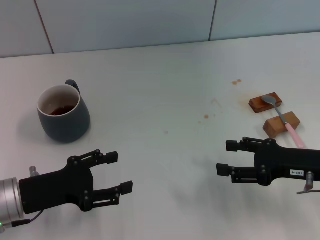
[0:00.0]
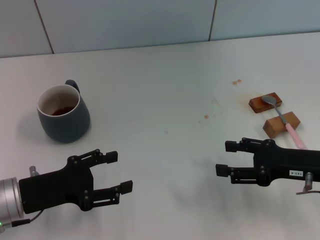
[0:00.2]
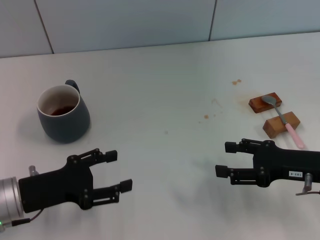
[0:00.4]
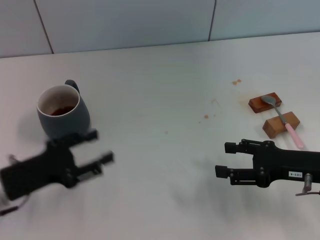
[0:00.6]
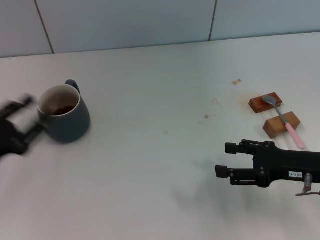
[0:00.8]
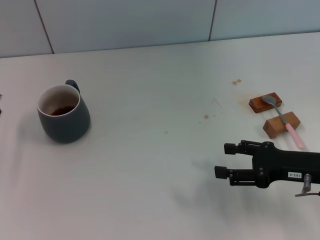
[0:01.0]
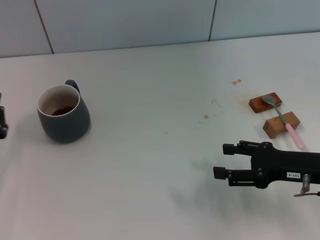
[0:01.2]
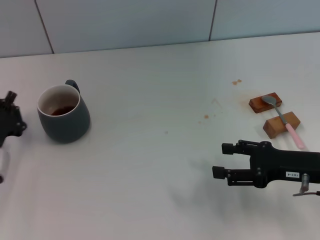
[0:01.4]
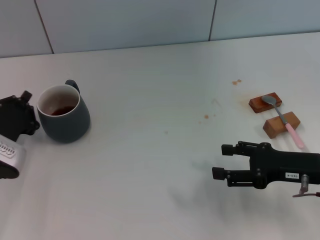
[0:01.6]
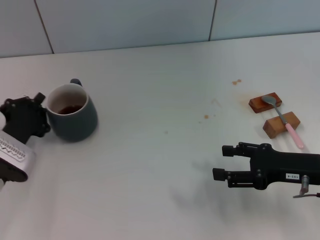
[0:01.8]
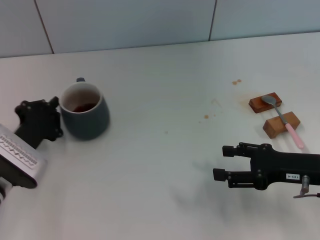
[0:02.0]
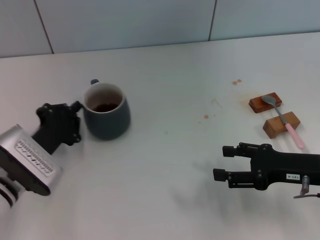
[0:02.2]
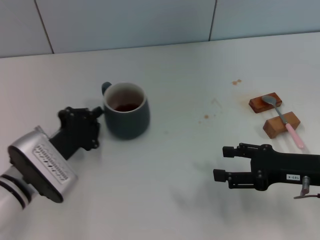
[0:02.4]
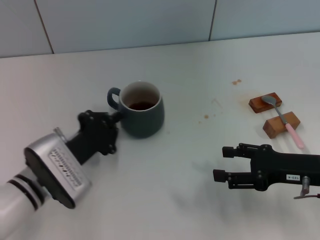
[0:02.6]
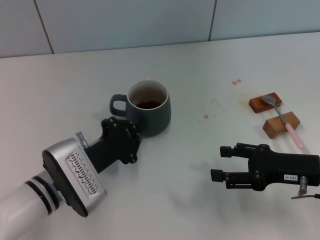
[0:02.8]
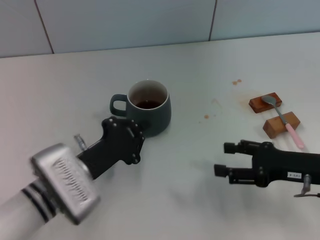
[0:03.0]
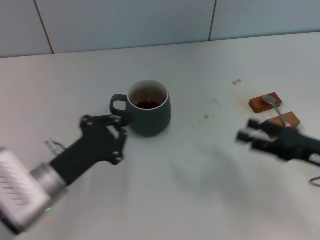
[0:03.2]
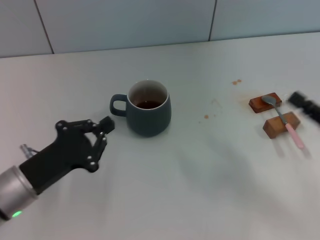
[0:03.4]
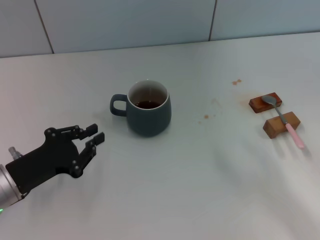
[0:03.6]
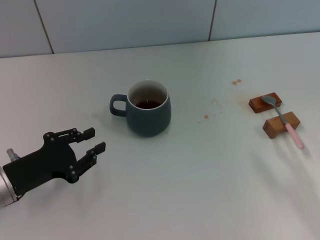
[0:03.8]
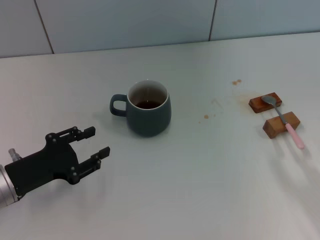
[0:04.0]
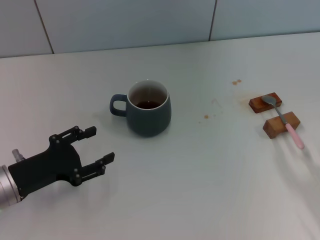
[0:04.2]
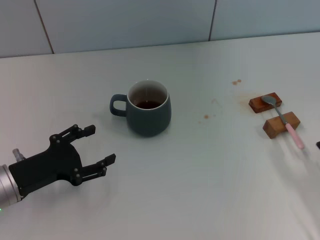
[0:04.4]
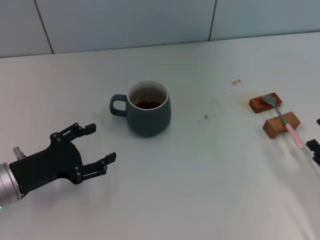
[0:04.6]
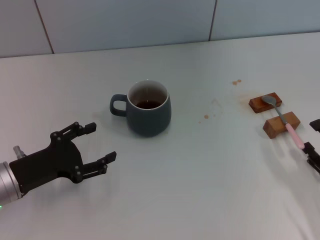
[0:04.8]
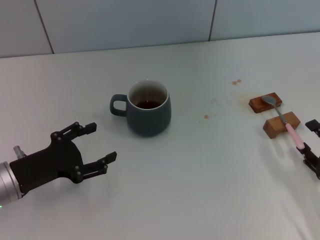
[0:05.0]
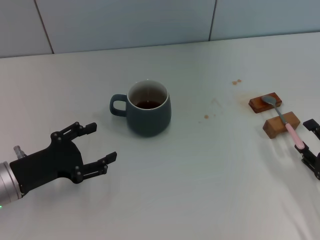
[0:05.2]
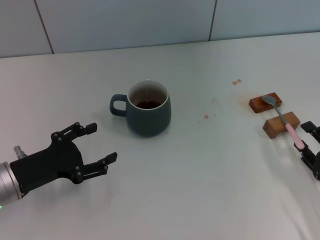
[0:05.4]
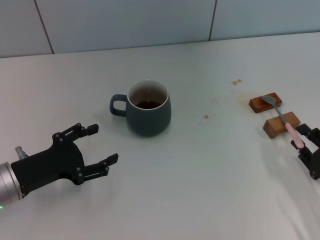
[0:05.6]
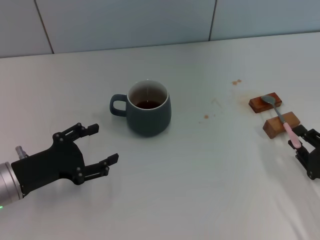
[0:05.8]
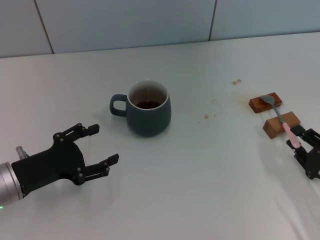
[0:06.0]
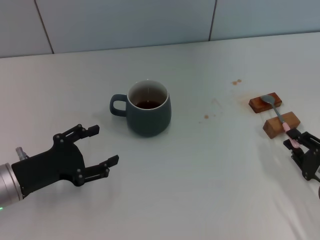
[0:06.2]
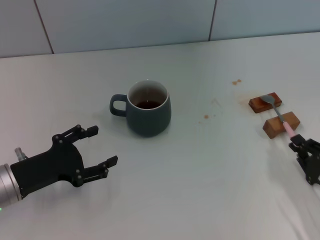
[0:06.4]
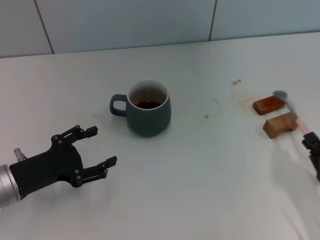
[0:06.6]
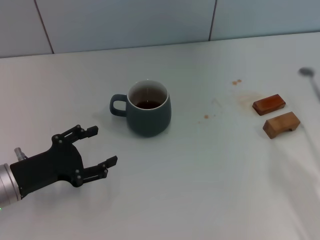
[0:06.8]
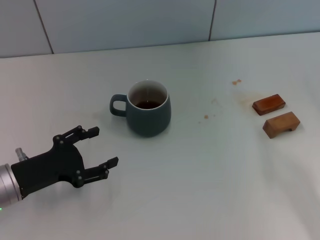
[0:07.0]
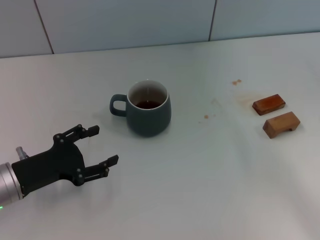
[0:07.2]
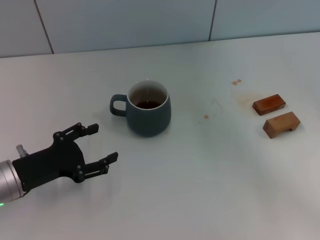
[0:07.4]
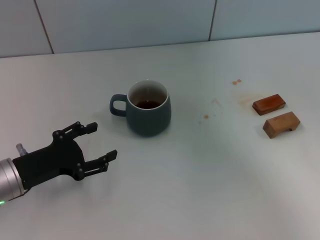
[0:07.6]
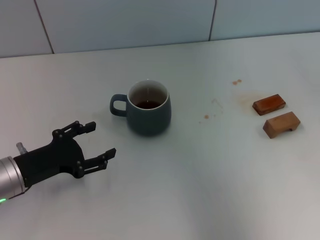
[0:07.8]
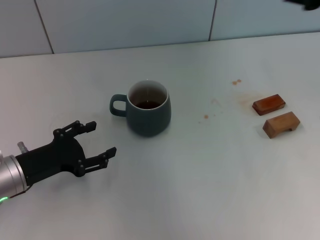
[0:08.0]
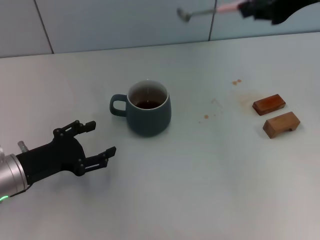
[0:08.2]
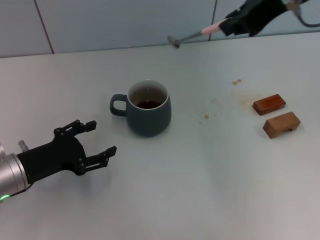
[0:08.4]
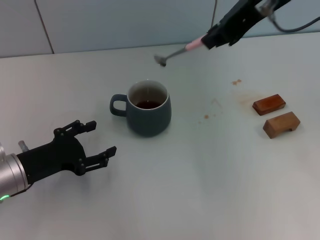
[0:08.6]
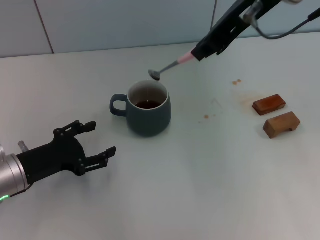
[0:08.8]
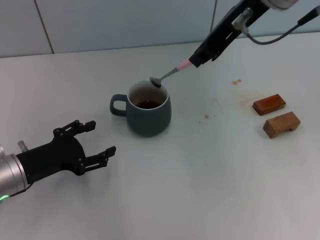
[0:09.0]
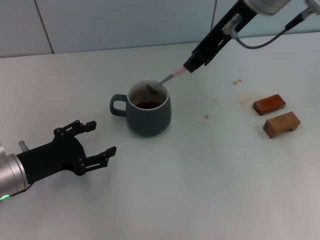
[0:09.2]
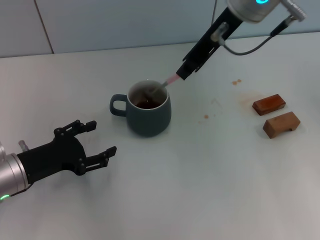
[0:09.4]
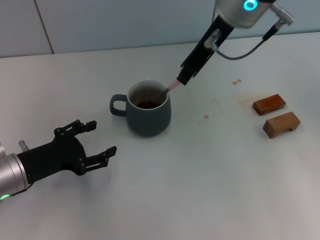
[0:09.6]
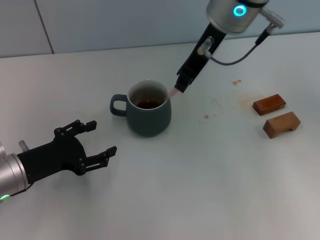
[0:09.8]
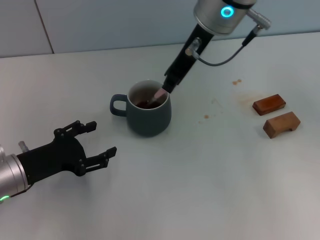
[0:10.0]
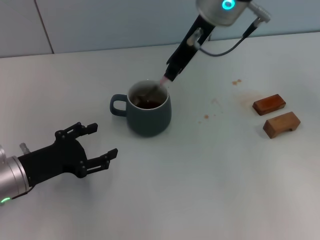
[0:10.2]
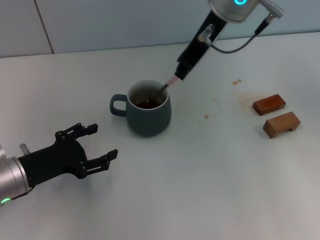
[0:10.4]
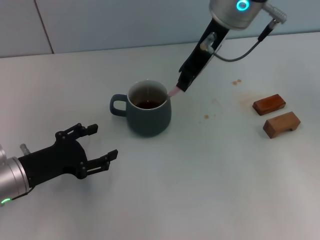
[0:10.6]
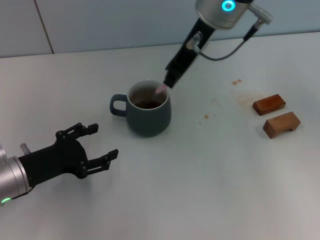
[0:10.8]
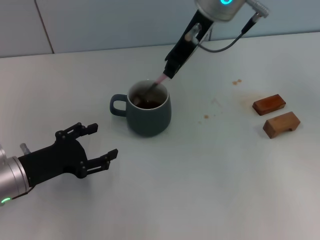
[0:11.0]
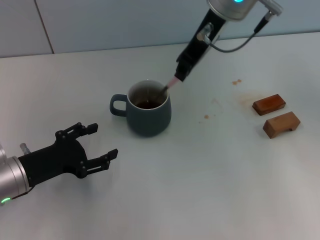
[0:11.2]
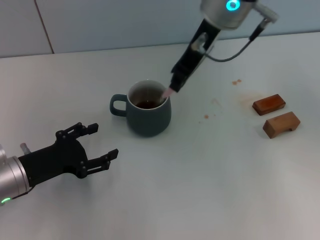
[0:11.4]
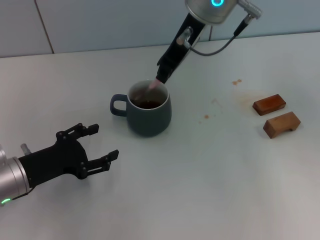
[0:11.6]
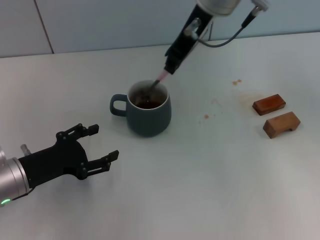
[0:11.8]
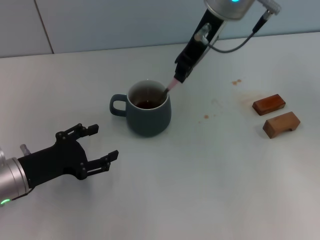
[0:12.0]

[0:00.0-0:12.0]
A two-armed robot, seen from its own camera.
Task of the whole recording: Move the grey cup to the center, lift the pink spoon, stir it three times in the cup, and put the spoon into the cup.
Step, 0:00.0 to 0:02.2: Move the cup with coffee to the center of view with the left gripper.
Step, 0:02.4 to 0:06.8: Pick up the spoon with the right gripper.
Step, 0:07.2 to 0:10.6: Stir the coffee in the cup with the right gripper.
0:00.0 to 0:01.6: The left gripper changes place by some 5 cm, and closes.
0:01.6 to 0:03.0: The left gripper is displaced to the right by some 10 cm.
0:03.0 to 0:04.4: The left gripper goes roughly 10 cm to the left, and opens up. The right gripper moves backward, downward and to the right, some 10 cm.
0:04.4 to 0:06.0: The right gripper closes.
0:06.0 to 0:07.6: The right gripper shifts roughly 25 cm upward, and closes up.
0:07.6 to 0:09.0: The right gripper goes about 25 cm to the left.
0:09.0 to 0:10.4: The right gripper travels forward by about 5 cm.
0:10.4 to 0:12.0: The grippers make only small movements.

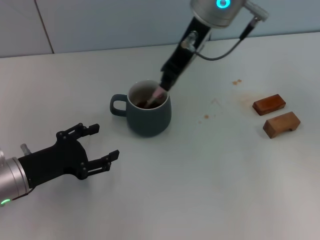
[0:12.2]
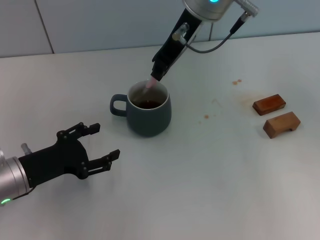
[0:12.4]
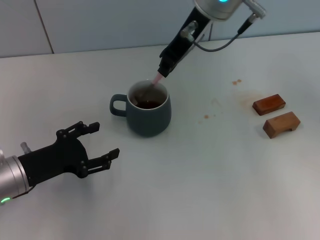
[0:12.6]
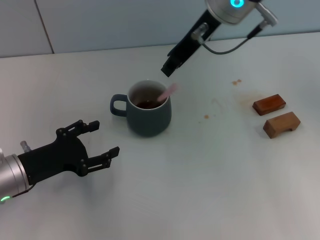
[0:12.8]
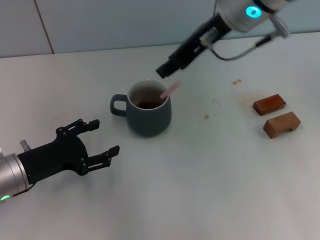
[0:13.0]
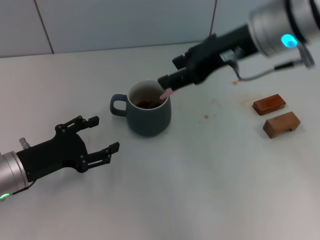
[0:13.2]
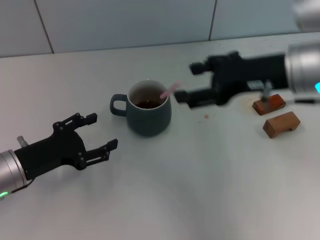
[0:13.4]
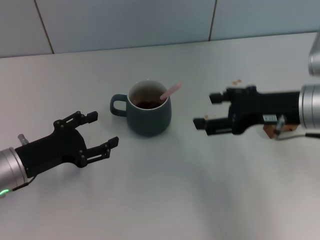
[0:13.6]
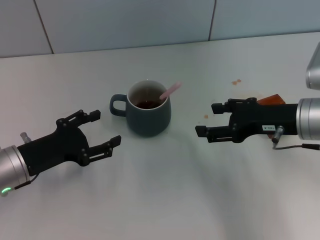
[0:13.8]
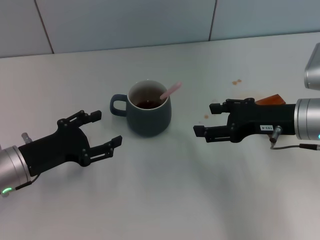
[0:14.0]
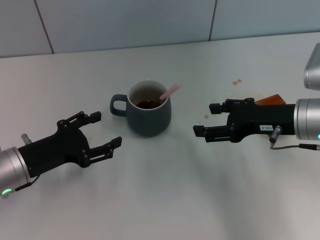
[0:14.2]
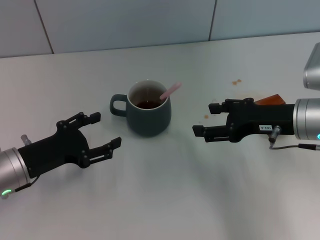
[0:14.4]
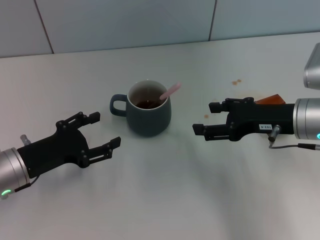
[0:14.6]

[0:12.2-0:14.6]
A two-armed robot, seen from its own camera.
Task of the whole recording: Move the grey cup to the center, lift the pink spoon, stir it three times in the cup, and put the spoon into the cup.
0:12.2 to 0:13.4: The right gripper heads to the right, backward and downward, covering roughly 15 cm, and opens up.
0:13.4 to 0:14.6: The right gripper shifts approximately 10 cm downward.
